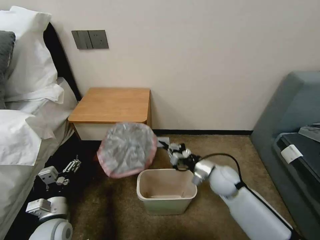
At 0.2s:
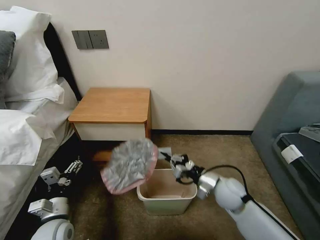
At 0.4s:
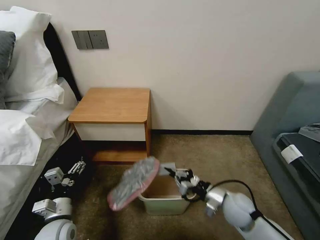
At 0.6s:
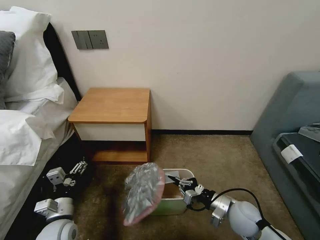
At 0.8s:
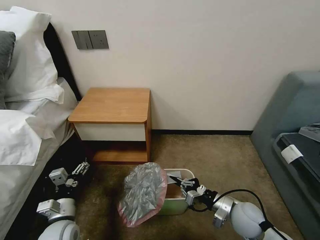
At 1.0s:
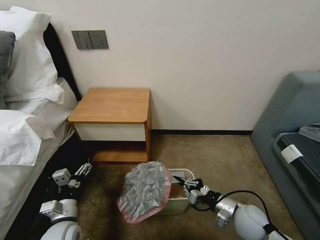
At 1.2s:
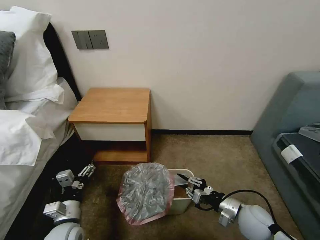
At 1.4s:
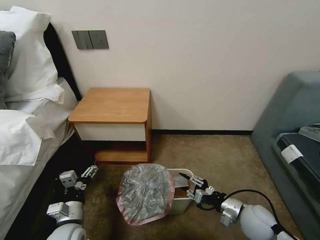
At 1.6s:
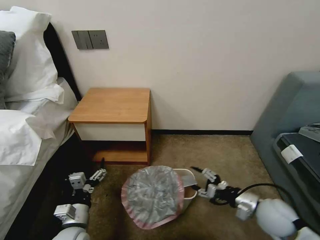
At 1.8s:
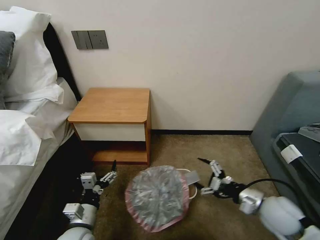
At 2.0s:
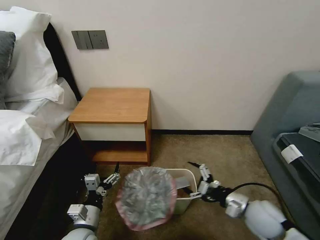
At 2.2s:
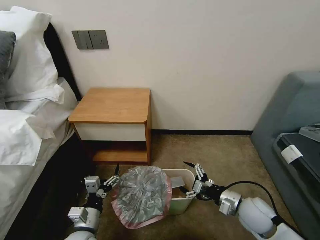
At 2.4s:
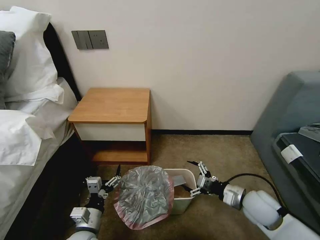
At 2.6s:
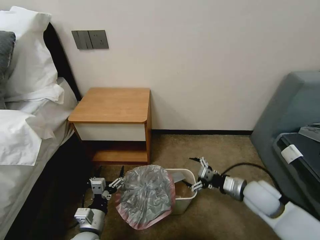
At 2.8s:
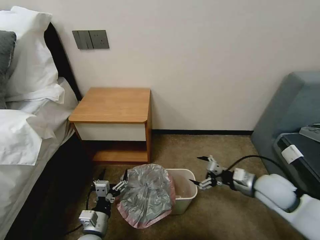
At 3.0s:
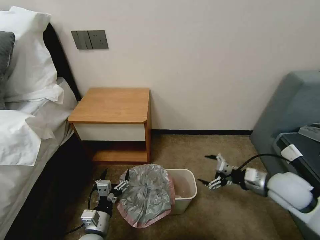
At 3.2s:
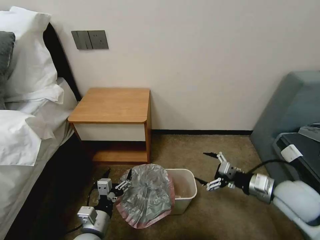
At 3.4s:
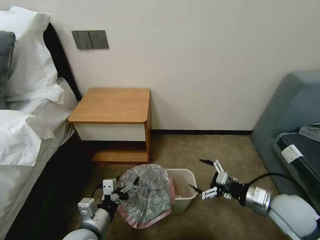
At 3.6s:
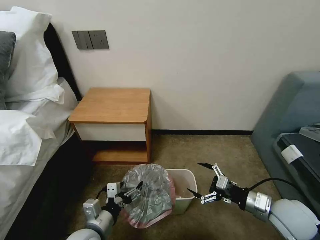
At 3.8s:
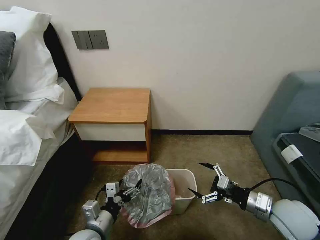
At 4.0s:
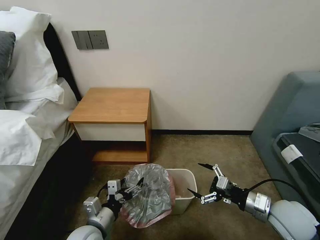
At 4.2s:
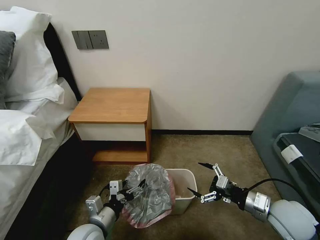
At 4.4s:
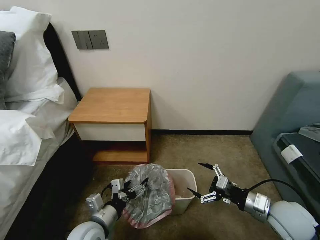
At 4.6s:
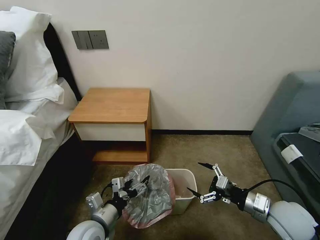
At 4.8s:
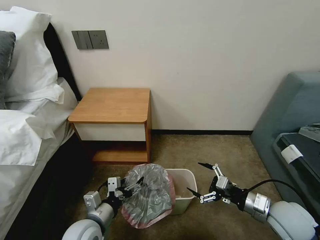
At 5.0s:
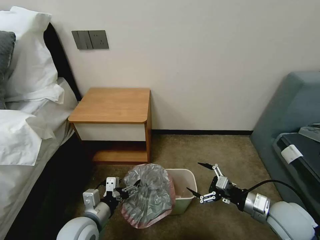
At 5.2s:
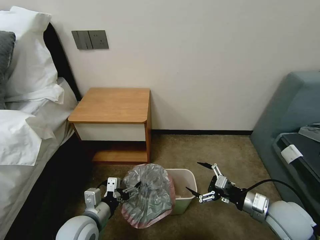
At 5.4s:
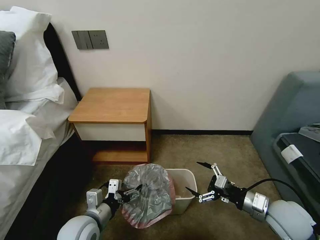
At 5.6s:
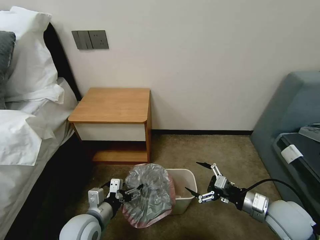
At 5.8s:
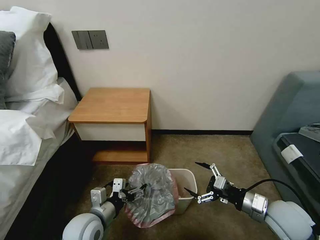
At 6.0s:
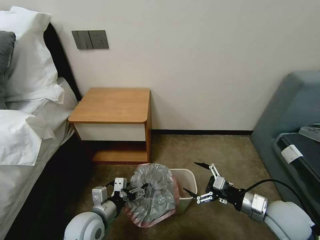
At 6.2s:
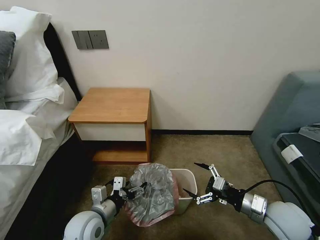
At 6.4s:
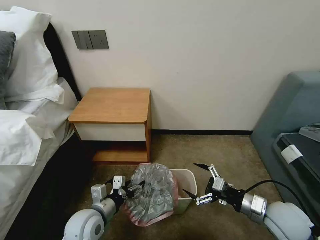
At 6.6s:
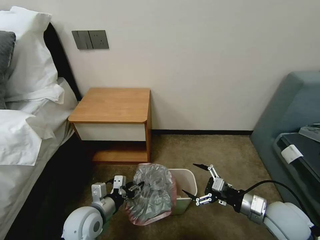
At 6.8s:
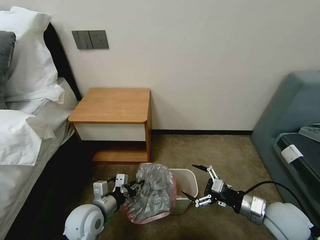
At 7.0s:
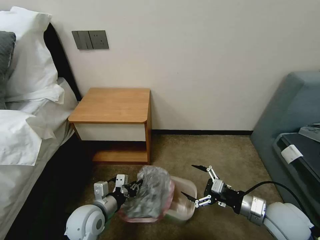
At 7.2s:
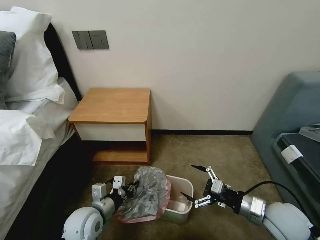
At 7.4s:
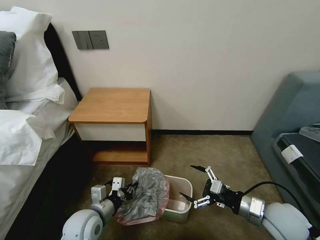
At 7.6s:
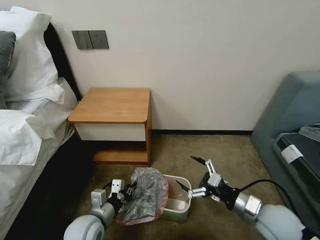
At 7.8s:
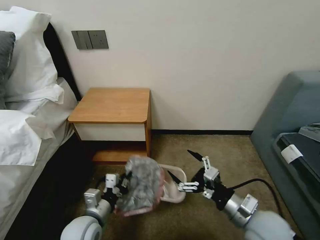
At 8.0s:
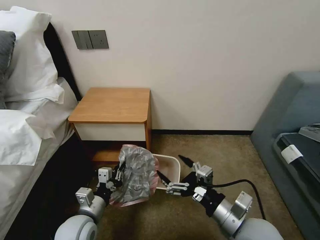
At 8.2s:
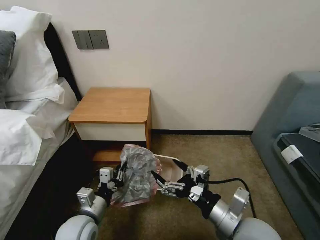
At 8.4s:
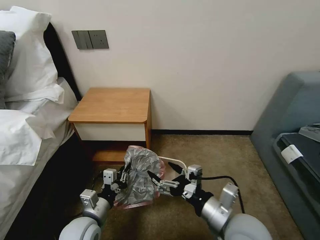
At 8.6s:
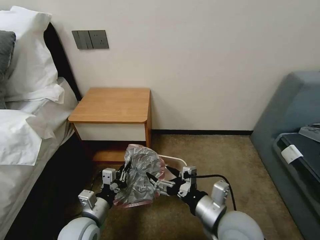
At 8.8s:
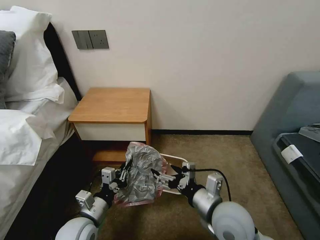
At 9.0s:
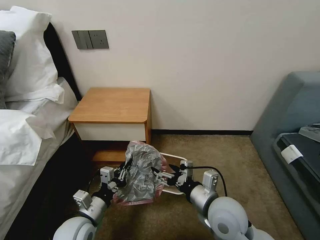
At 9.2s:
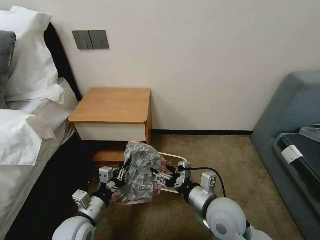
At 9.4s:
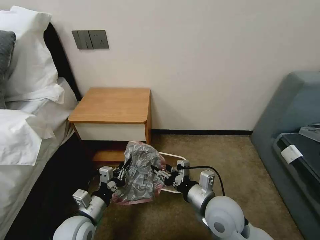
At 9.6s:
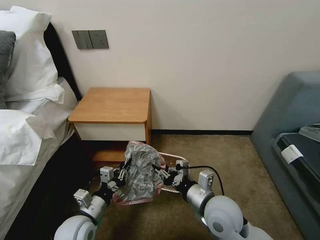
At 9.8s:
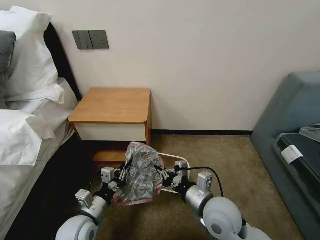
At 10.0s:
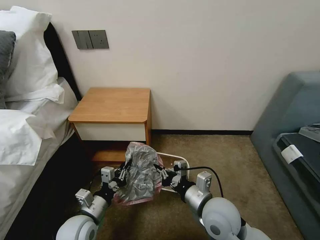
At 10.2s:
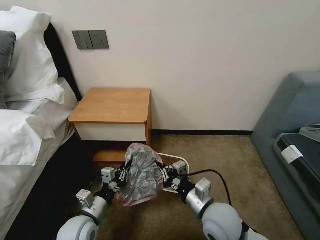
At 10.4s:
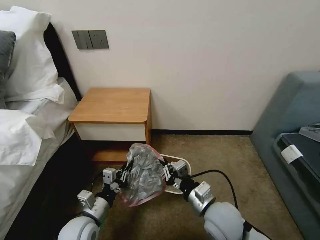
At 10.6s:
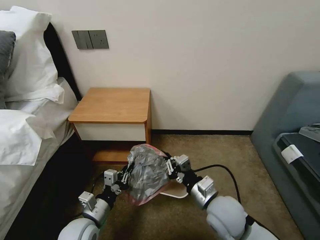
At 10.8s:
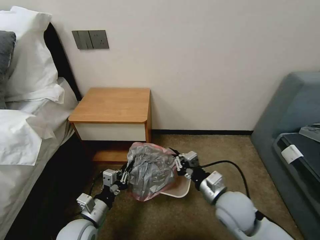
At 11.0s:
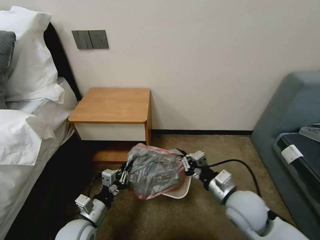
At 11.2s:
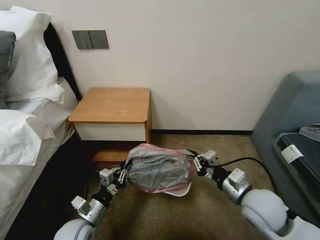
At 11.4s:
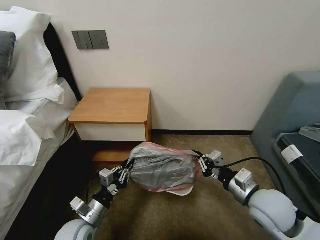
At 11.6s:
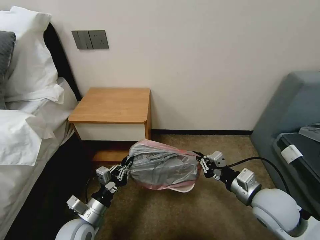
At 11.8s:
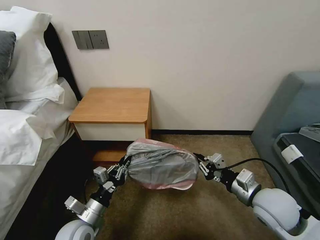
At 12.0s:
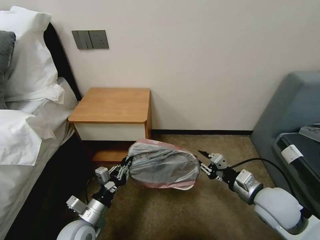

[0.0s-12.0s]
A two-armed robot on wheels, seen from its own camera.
Task of the whole recording: Pick up the garbage bag from the table and place it over the trash can.
0.0s to 1.6s: The right gripper travels to the right and backward by some 15 cm, and opens up; the left gripper moves to the right, some 5 cm.
1.6s to 3.0s: The left gripper shifts by roughly 5 cm; the right gripper moves upward, roughly 5 cm.
3.0s to 4.4s: The left gripper goes some 5 cm upward, while the right gripper goes approximately 5 cm backward.
4.4s to 6.0s: The grippers stay close to where they were, moving slightly.
6.0s to 7.6s: The left gripper closes.
7.6s to 9.0s: The right gripper is displaced to the left by about 15 cm.
9.0s to 10.4s: The right gripper closes up.
10.4s to 12.0s: The right gripper is displaced to the right by roughly 15 cm.

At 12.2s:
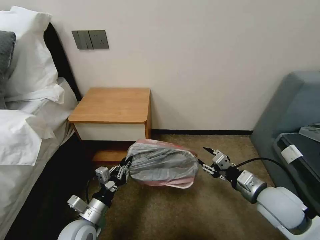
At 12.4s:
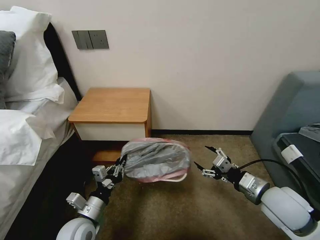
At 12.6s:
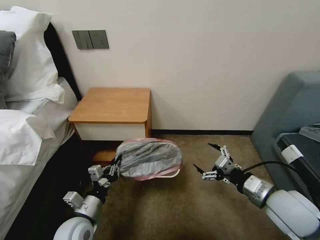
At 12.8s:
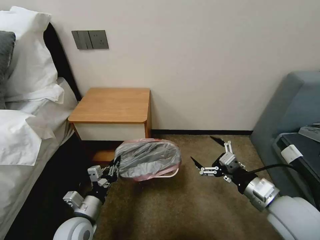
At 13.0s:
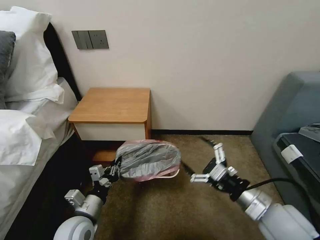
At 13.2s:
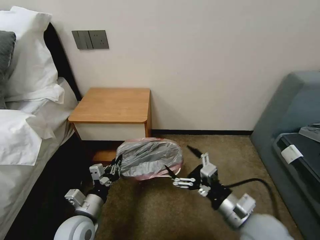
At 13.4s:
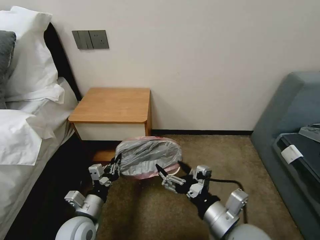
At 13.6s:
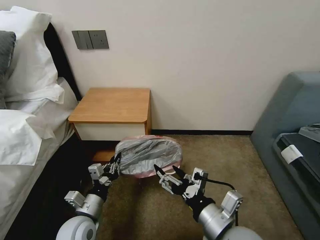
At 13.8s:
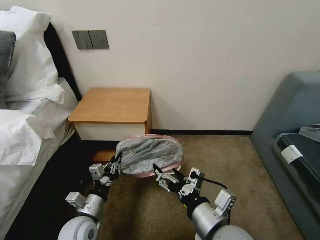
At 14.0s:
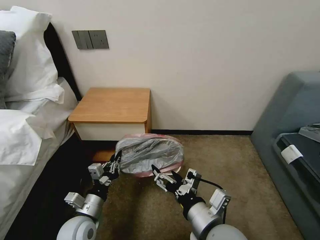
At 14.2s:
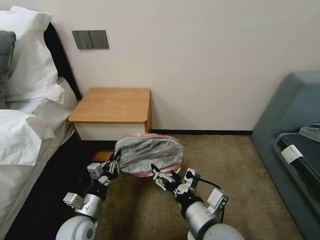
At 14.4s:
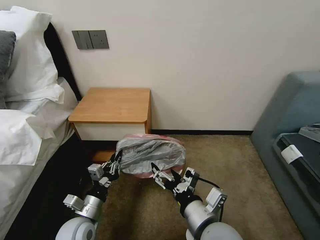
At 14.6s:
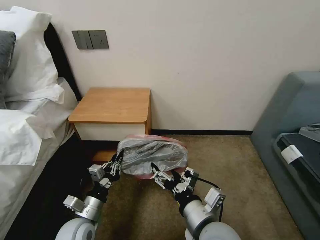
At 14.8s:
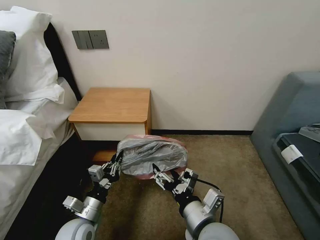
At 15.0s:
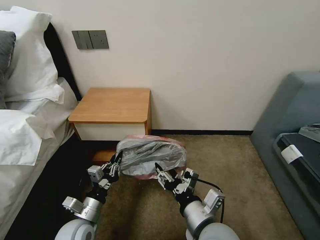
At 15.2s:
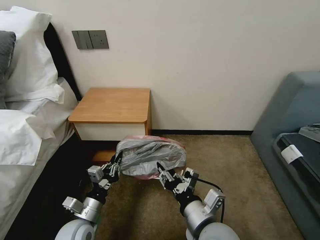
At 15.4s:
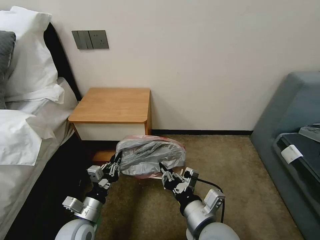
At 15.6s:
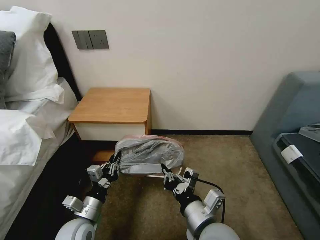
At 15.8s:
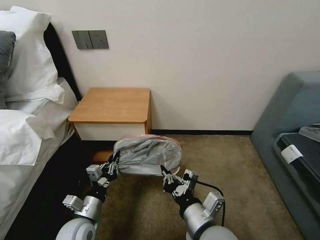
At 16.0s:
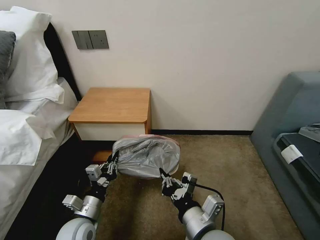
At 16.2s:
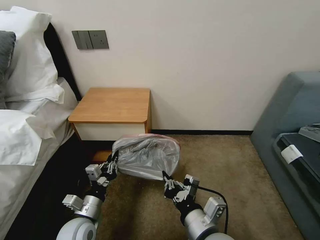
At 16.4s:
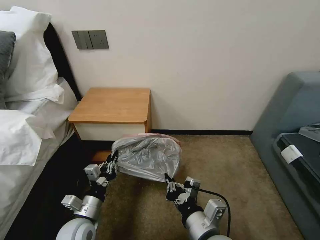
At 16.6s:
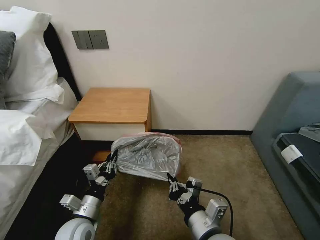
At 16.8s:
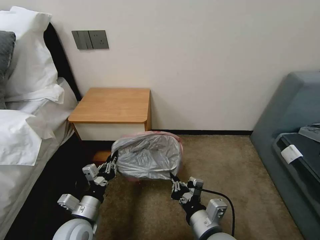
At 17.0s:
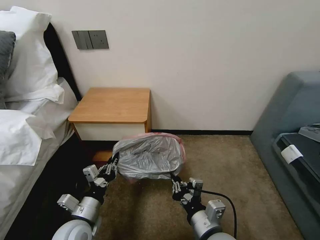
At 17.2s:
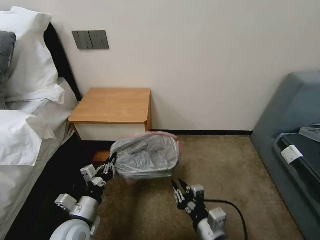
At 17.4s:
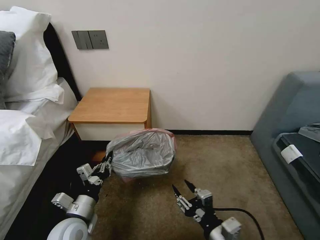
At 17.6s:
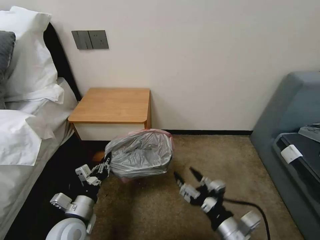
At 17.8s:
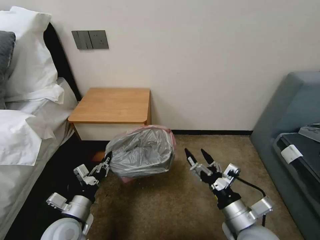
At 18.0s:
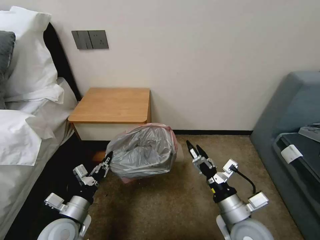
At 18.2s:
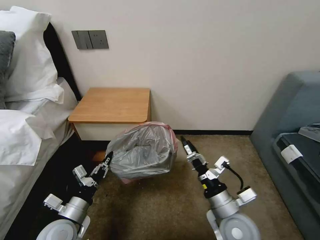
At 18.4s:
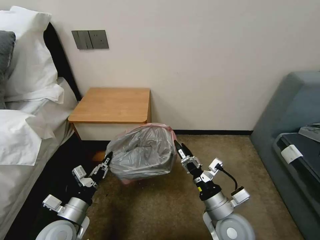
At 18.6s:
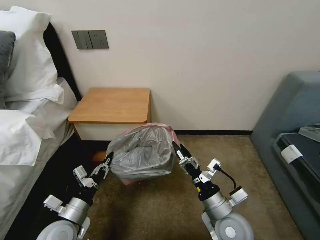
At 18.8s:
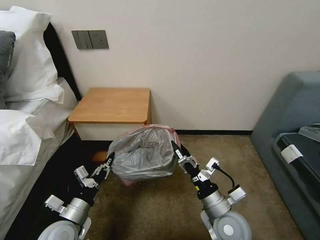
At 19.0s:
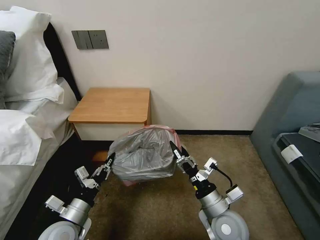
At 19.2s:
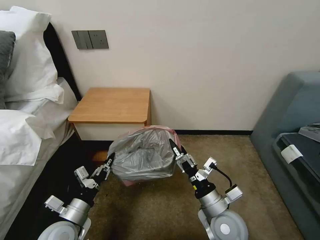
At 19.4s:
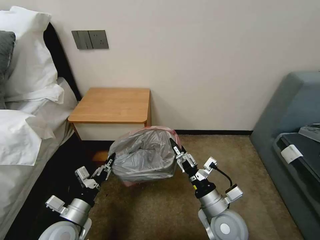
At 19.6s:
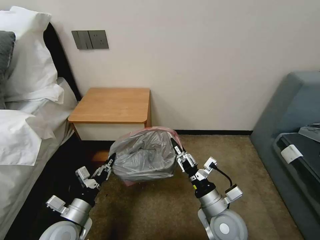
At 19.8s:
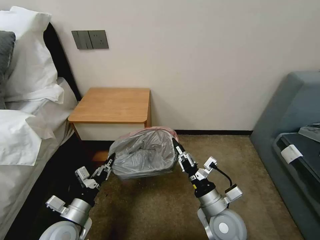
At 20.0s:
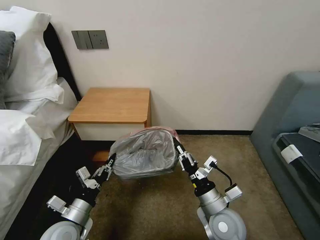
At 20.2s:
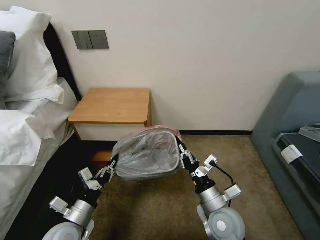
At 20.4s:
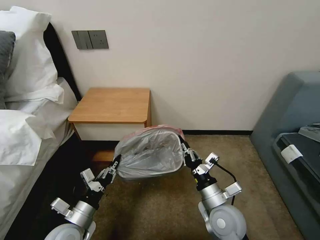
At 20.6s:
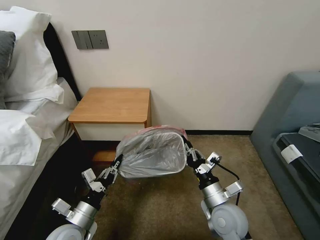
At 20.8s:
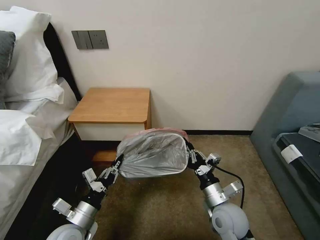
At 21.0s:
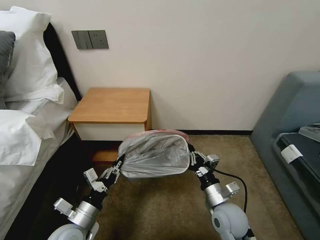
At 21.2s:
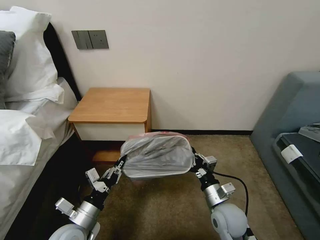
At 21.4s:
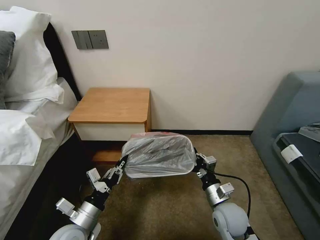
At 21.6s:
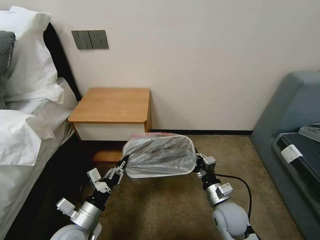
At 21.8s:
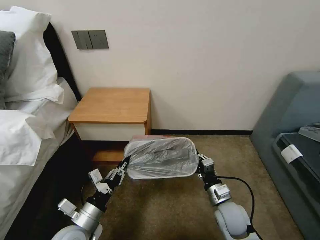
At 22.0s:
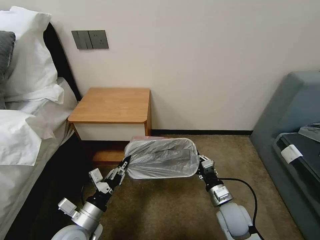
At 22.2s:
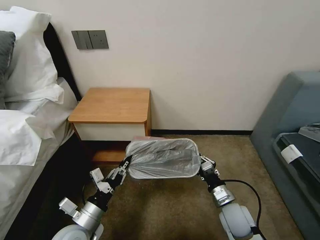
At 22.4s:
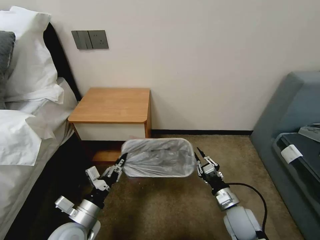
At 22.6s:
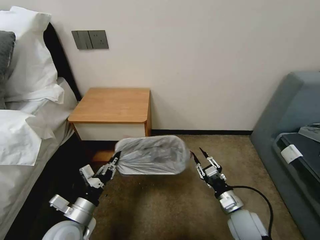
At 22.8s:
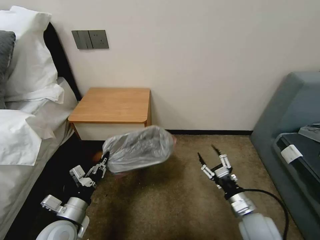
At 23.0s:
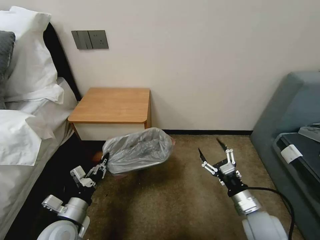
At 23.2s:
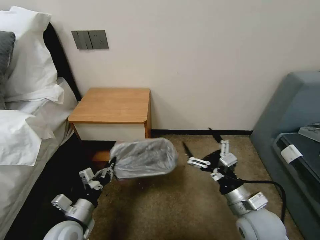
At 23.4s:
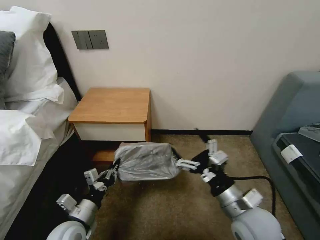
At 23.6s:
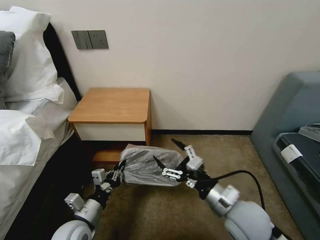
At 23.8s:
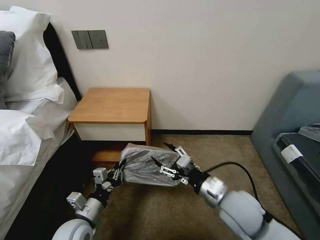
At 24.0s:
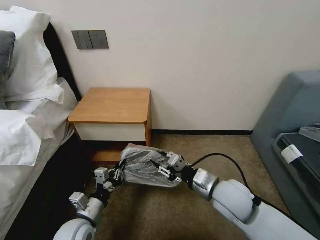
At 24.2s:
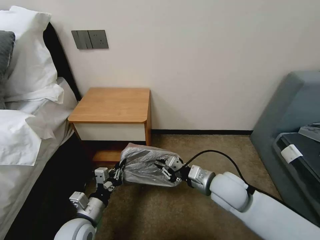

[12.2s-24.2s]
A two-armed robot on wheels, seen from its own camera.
Task of the whole recording: Pick up the garbage bag from the table and place it over the trash can.
12.2s to 13.8s: The right gripper heads to the left and backward, covering about 20 cm, and opens up.
13.8s to 15.2s: The right gripper closes.
15.2s to 16.6s: The right gripper closes up.
16.6s to 18.2s: The right gripper shifts roughly 10 cm to the right and forward, and opens its fingers.
18.2s to 19.8s: The right gripper closes its fingers.
19.8s to 21.2s: The right gripper changes place by some 5 cm.
21.2s to 22.6s: The right gripper goes roughly 5 cm to the right.
22.6s to 24.2s: The right gripper moves upward, to the left and forward, approximately 15 cm, and opens and closes again.
